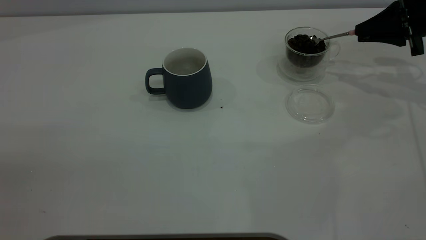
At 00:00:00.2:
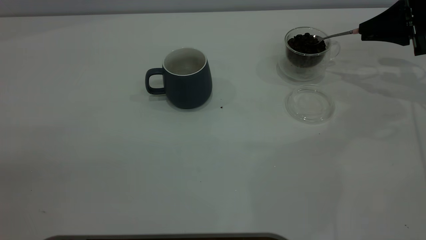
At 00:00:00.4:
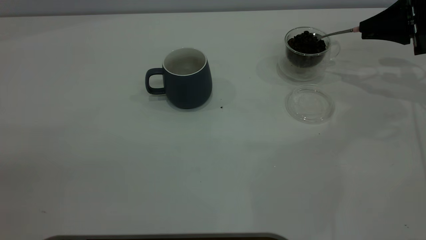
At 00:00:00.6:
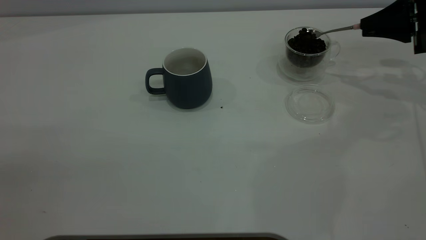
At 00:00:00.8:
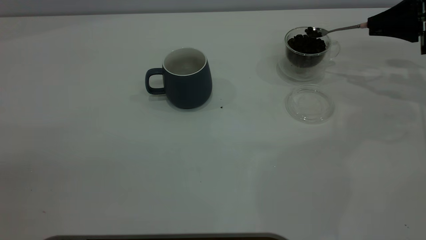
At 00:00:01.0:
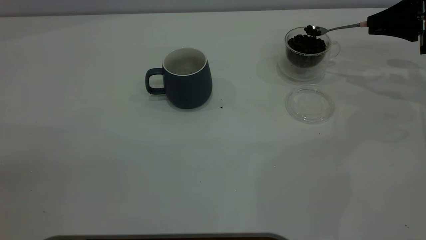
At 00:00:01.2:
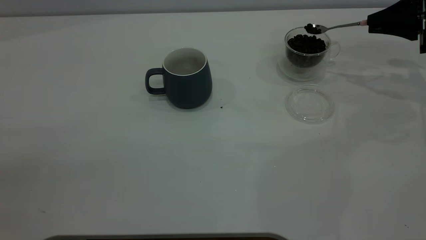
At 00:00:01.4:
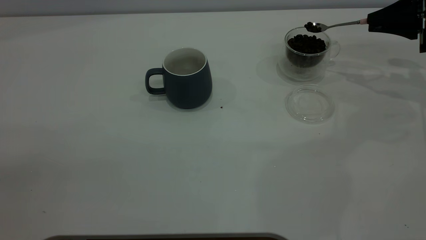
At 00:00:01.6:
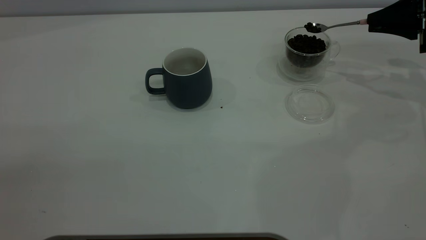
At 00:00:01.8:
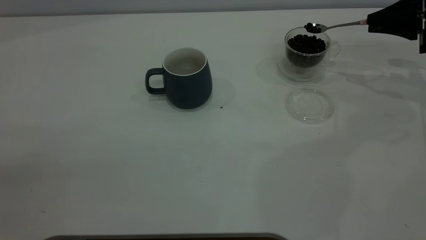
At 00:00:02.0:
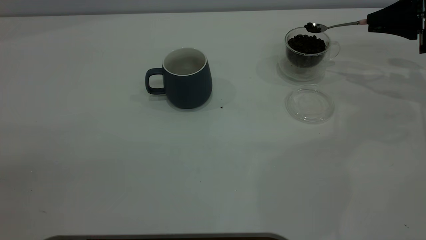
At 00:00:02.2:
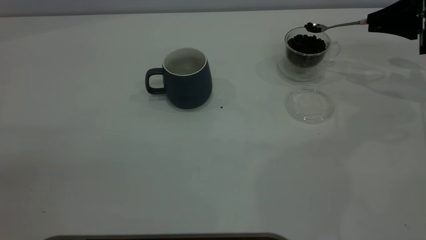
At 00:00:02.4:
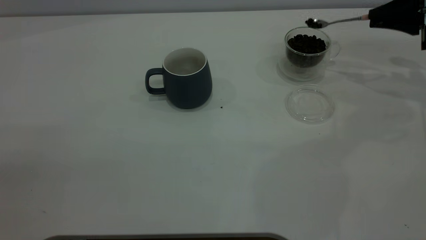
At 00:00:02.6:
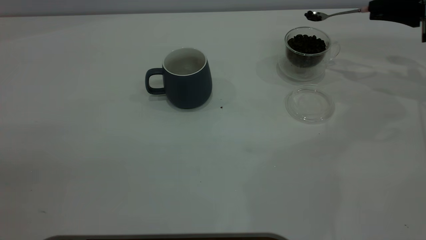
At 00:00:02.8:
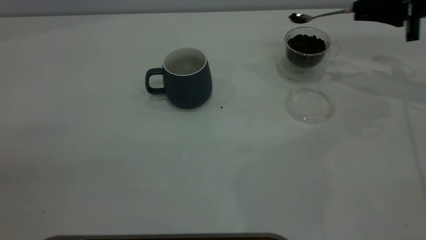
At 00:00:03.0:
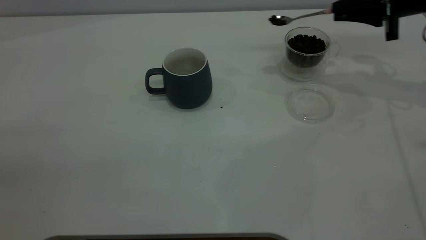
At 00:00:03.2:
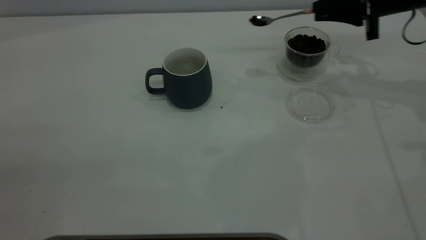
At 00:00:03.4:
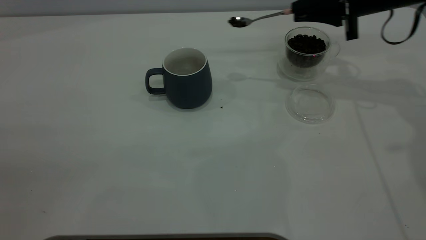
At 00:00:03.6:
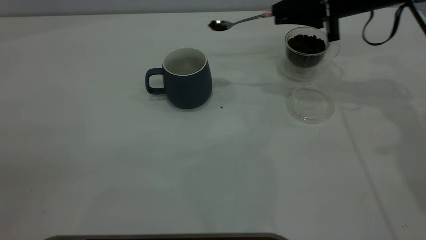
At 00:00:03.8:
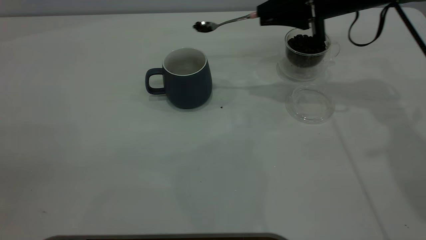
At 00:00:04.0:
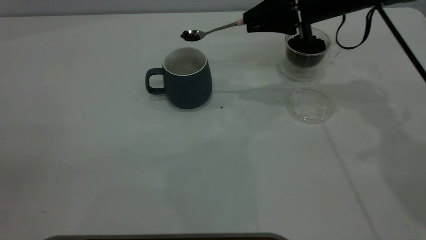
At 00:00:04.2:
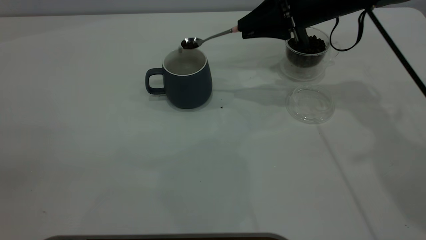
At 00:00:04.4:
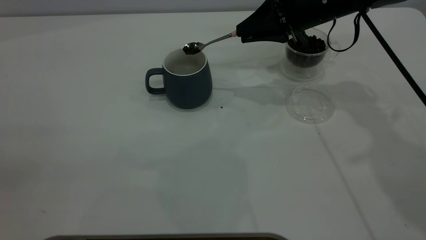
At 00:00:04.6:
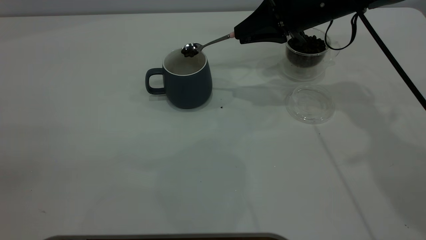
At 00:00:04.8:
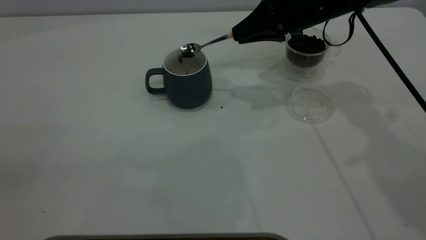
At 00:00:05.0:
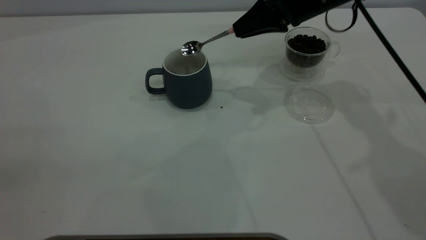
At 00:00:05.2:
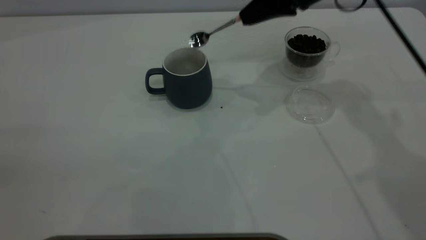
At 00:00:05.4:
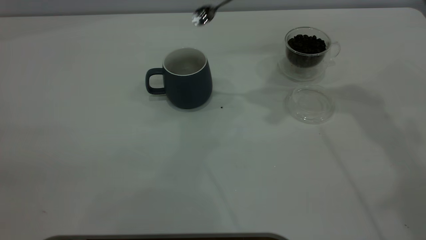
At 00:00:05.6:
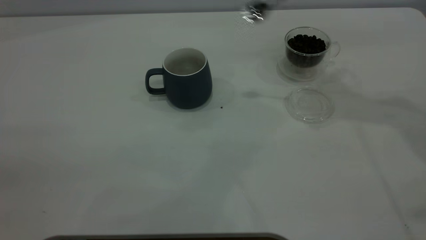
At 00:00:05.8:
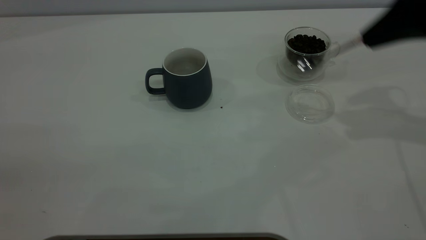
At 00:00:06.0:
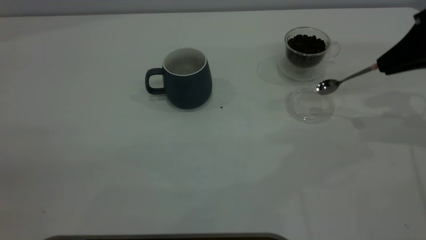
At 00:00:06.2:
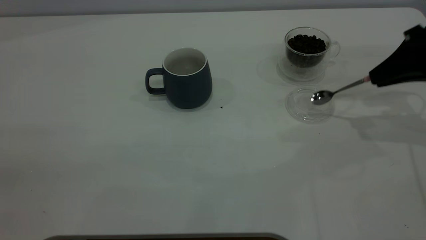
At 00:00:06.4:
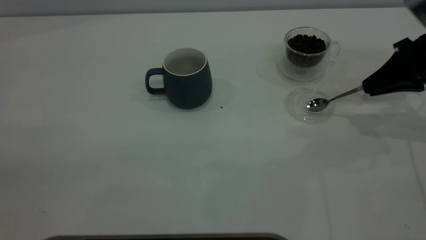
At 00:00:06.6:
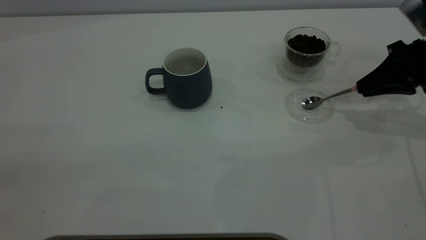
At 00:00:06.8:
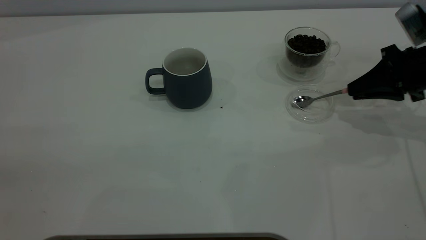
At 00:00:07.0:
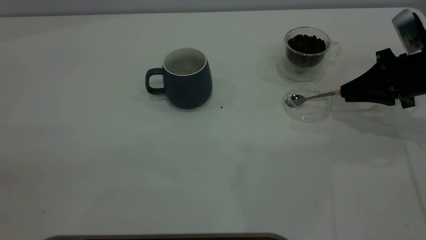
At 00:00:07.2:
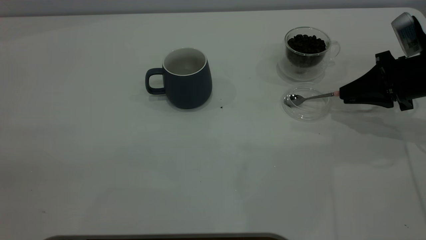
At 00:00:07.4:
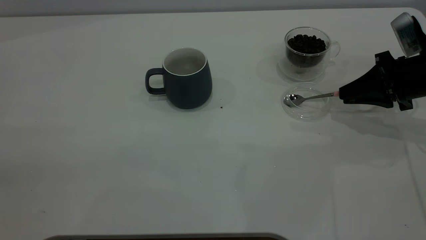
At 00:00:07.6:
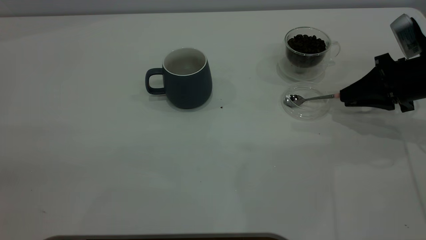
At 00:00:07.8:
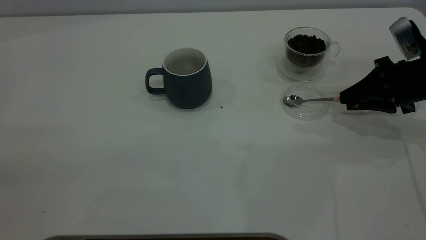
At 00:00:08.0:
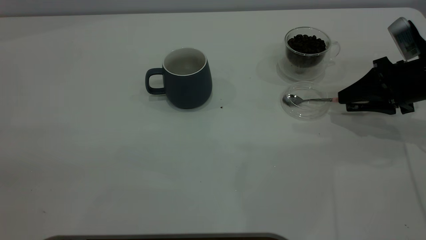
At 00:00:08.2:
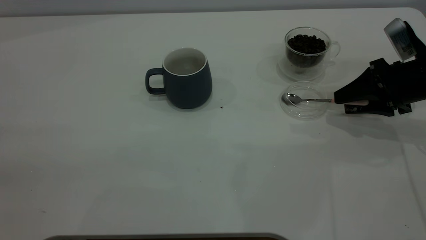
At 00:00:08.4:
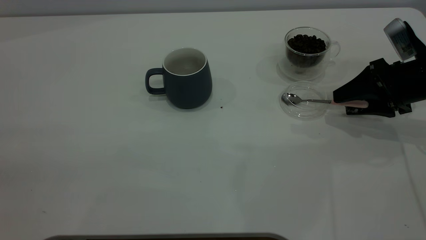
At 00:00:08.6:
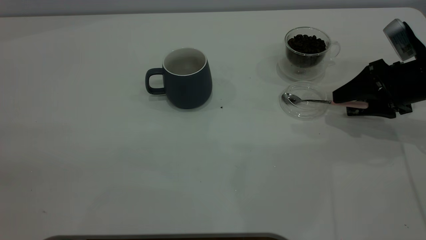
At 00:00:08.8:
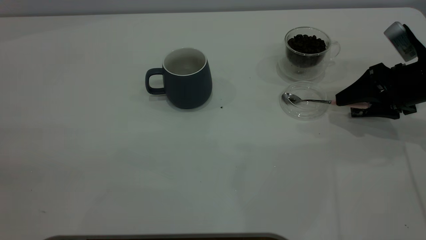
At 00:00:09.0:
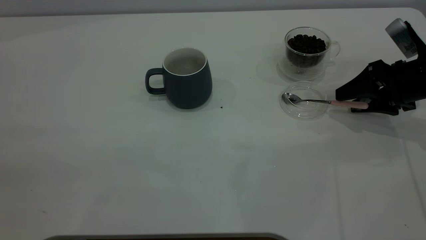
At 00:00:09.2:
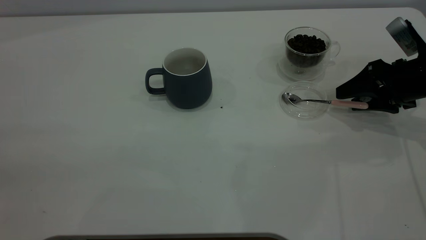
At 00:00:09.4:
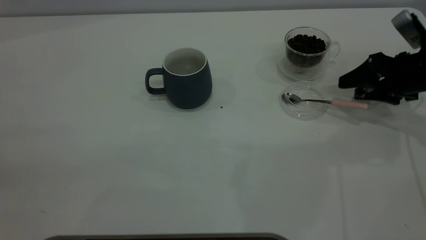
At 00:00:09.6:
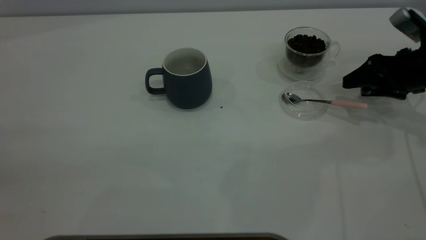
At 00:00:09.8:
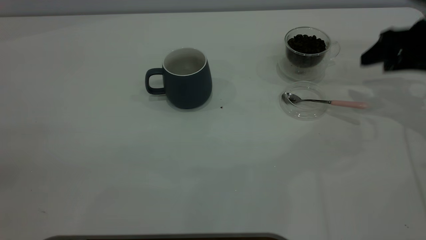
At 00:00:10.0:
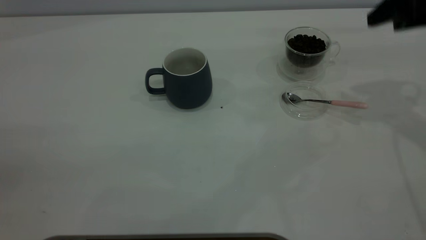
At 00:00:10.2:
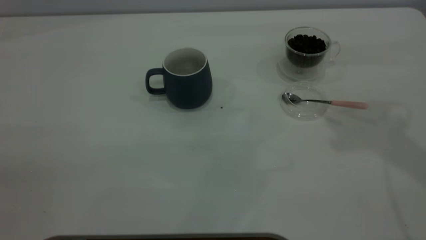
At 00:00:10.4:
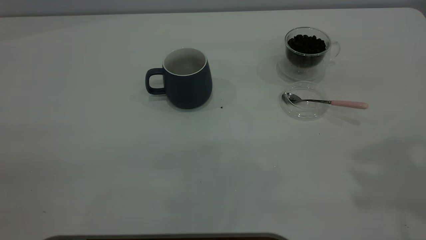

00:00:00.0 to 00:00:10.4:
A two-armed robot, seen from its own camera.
Task of the whole recording: the left gripper place the grey cup in the center of the table, the right gripper take the pink spoon from the cup lid and scoop out the coffee beans from the coffee cup and put them into the grey cup, the right gripper put the spoon back into the cup lid.
Step, 00:00:00.0 to 00:00:05.2: Scoop a spoonful of beans into the cup.
Step, 00:00:05.4 to 00:00:09.6: Place the spoon back in its original place.
00:00:00.0 to 00:00:01.4: The grippers stay close to where they were, moving slightly.
00:00:01.4 to 00:00:03.0: The right gripper moves to the left, some 5 cm.
00:00:03.0 to 00:00:04.4: The right gripper moves to the left, some 15 cm.
00:00:04.4 to 00:00:06.0: The right gripper is displaced to the right and backward by about 20 cm.
00:00:06.0 to 00:00:07.4: The right gripper travels downward by roughly 10 cm.
00:00:07.4 to 00:00:09.0: The right gripper opens.
00:00:09.0 to 00:00:10.4: The right gripper heads upward and backward, covering some 35 cm.

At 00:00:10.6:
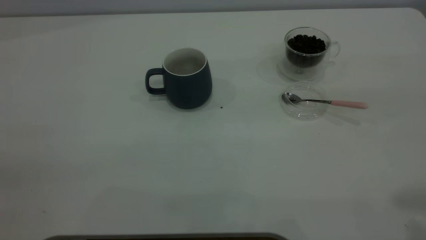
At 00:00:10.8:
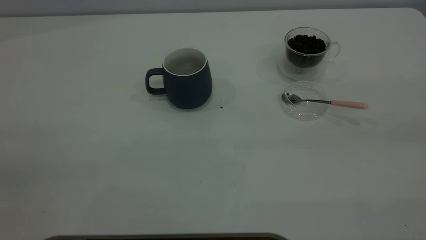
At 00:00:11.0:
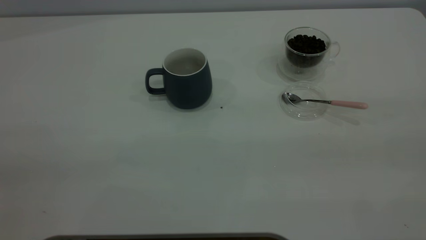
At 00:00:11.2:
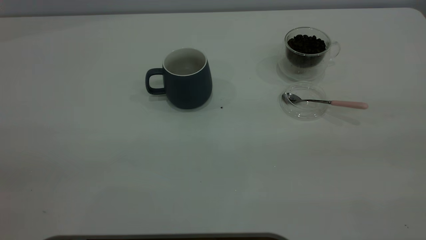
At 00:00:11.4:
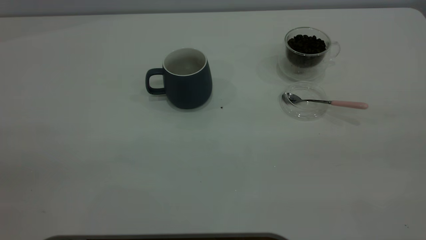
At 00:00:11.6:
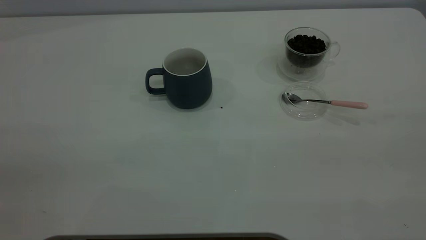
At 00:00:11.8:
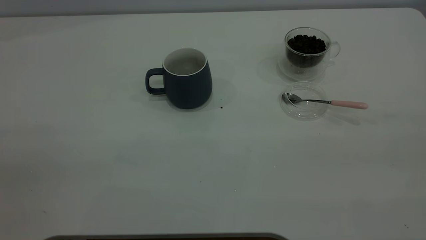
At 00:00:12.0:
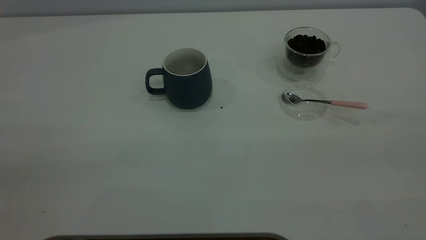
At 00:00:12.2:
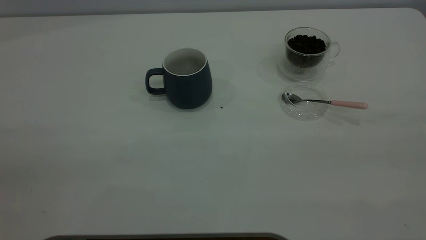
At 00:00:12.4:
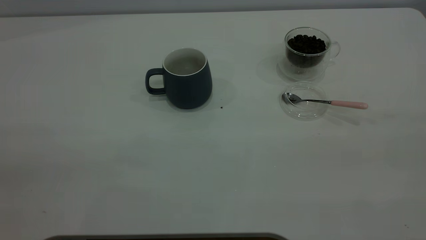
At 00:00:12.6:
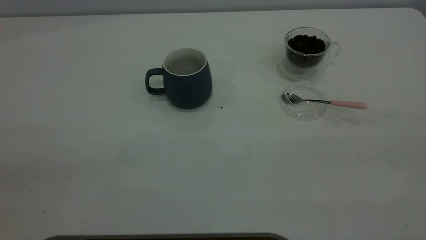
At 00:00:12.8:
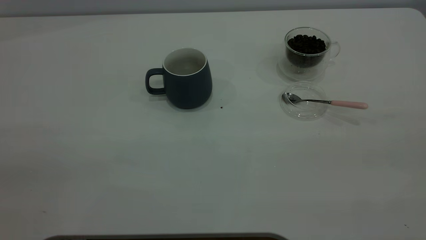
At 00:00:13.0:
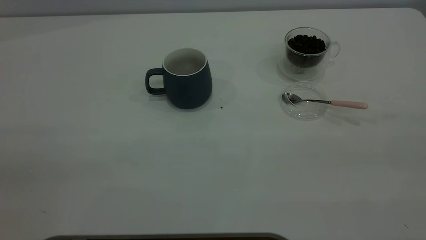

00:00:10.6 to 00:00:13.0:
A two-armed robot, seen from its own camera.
Task of the whole recording: the left gripper place the grey cup in the center of the table, the right gripper take the pink spoon from the cup lid and scoop out the coffee beans from the coffee cup and put them into the grey cup, the right gripper put the spoon back into the cup lid.
00:00:11.8 to 00:00:13.0: Both grippers stay about where they are.
